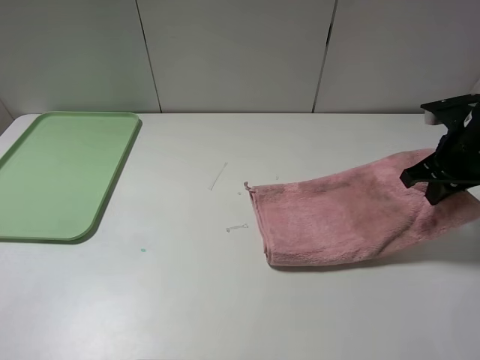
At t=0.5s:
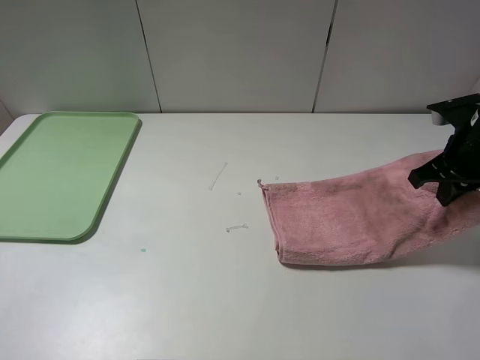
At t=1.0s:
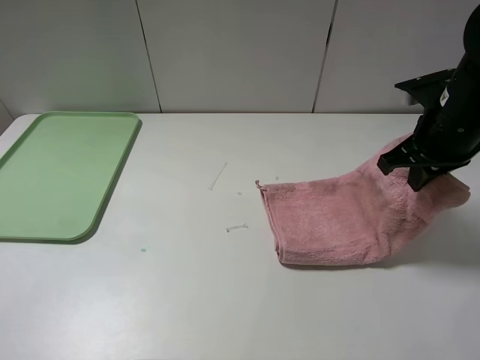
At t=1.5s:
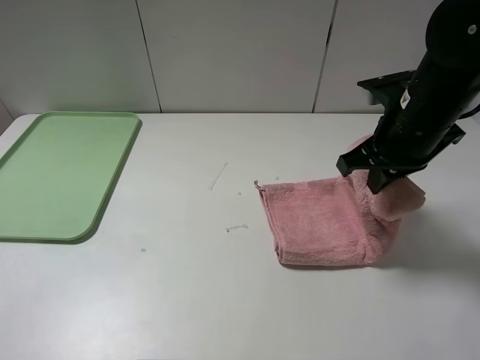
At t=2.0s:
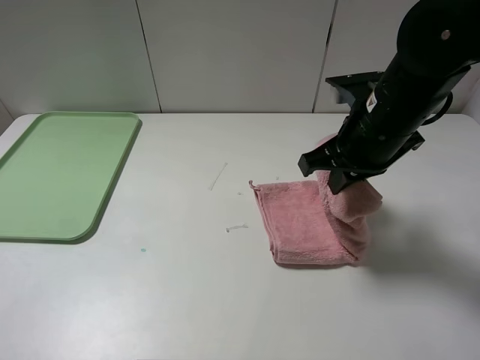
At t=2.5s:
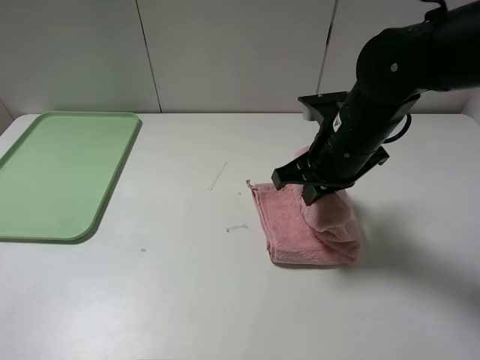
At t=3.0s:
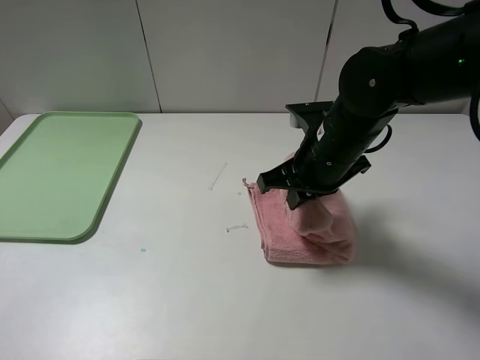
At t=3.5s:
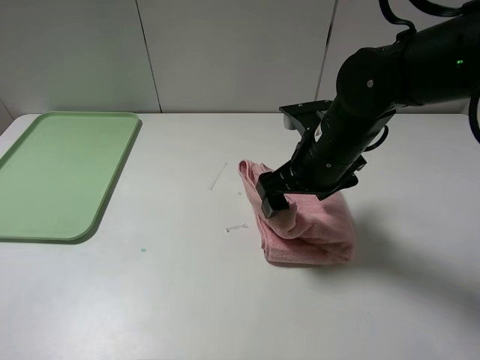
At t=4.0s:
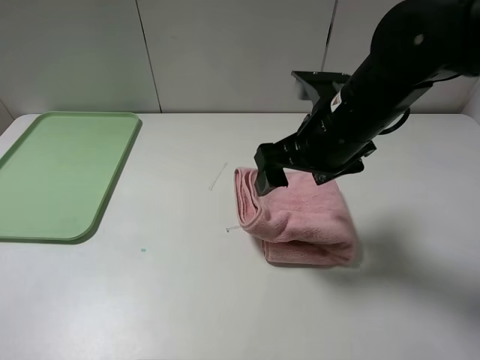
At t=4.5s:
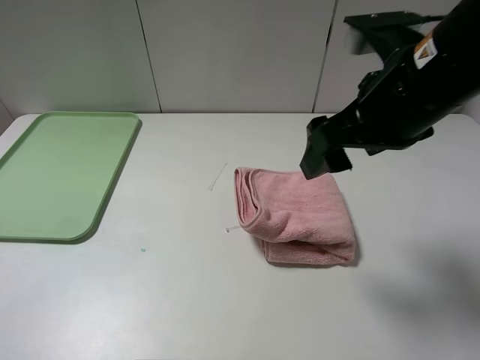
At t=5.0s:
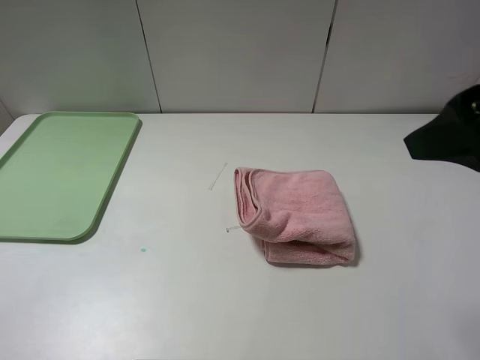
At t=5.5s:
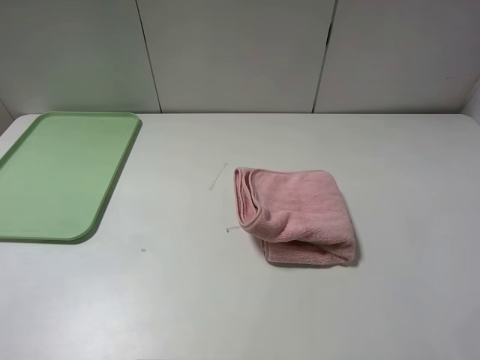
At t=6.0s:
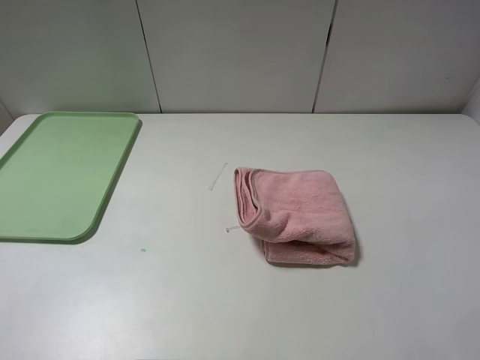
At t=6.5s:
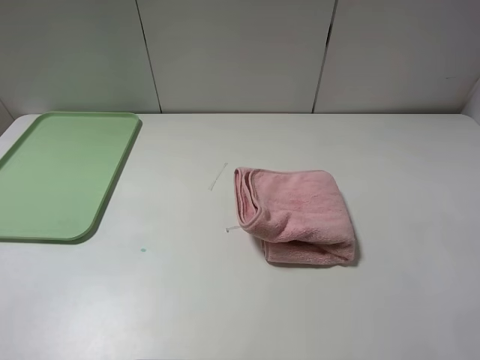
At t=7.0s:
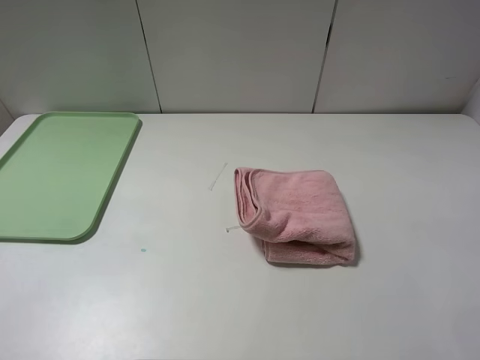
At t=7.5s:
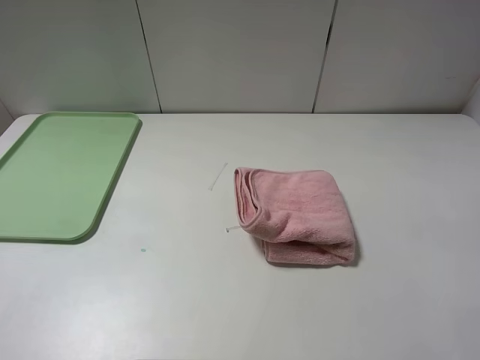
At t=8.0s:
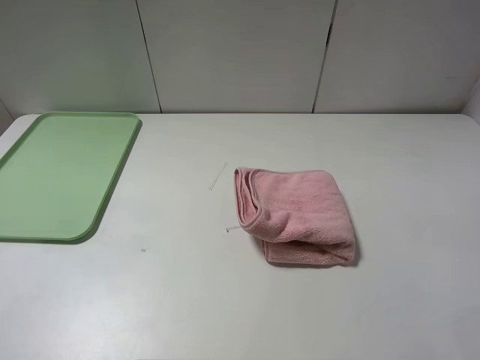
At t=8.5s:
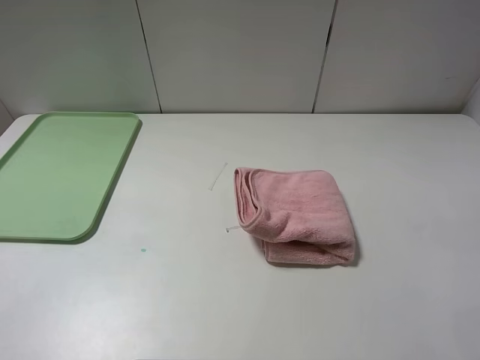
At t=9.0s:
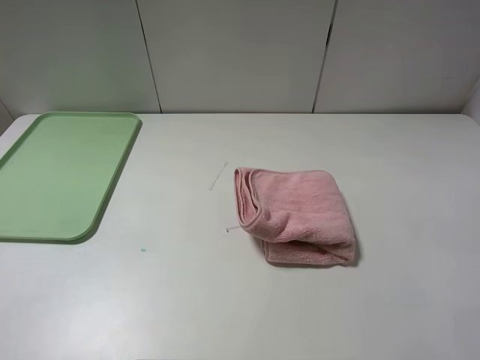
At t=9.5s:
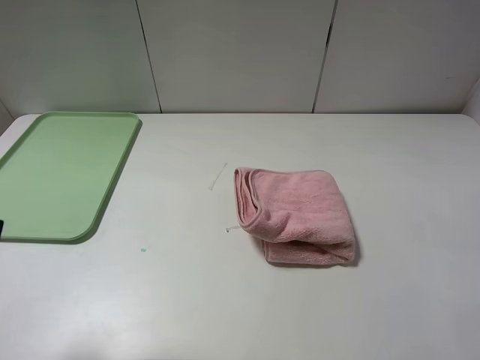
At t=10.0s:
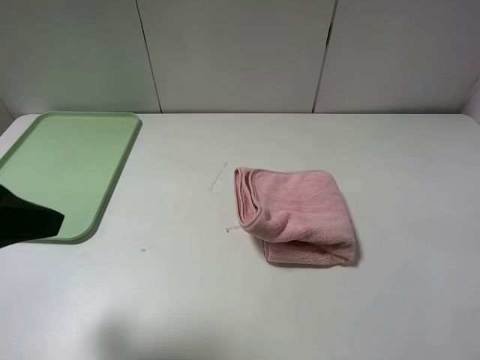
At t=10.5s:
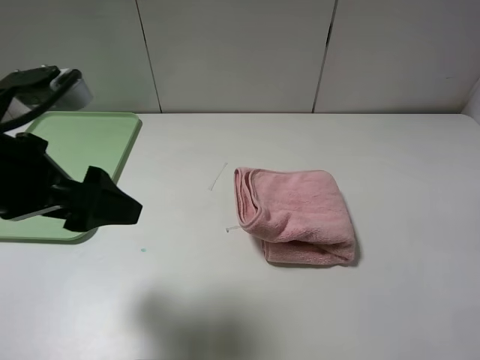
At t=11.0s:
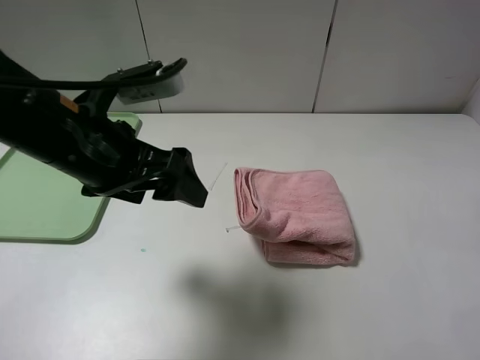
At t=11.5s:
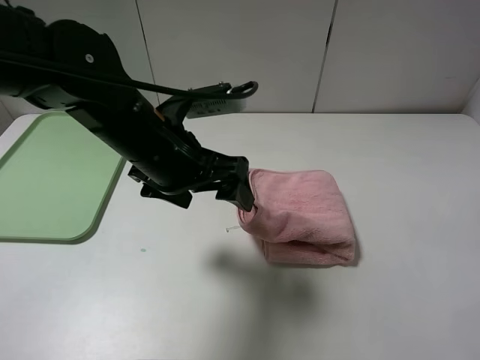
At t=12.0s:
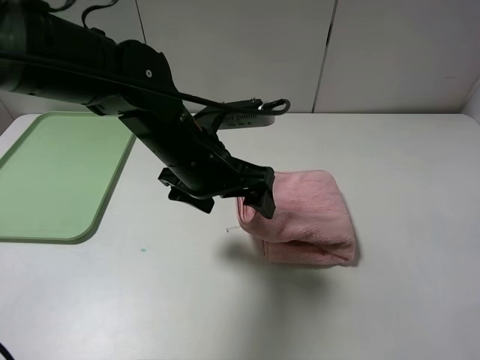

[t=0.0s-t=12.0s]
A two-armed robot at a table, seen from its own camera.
Step, t=0.0s to t=4.0s: Fold the pink towel from right to left with right gripper.
t=0.0s to t=2.0s: The right gripper is displaced to the left by about 15 cm.
t=2.0s to t=4.0s: The right gripper opens up.
t=4.0s to t=6.0s: The right gripper moves backward and to the right, roughly 30 cm.
t=8.0s to t=10.0s: The left gripper is displaced forward by roughly 15 cm.
t=10.0s to t=12.0s: The left gripper travels to the right, forward and downward by approximately 25 cm.

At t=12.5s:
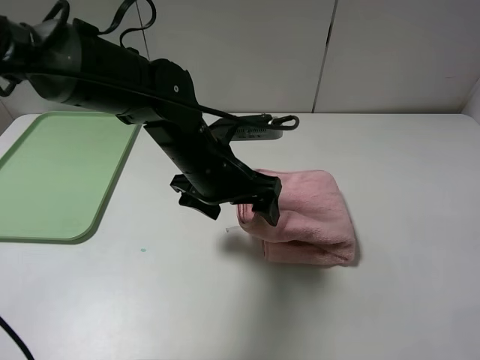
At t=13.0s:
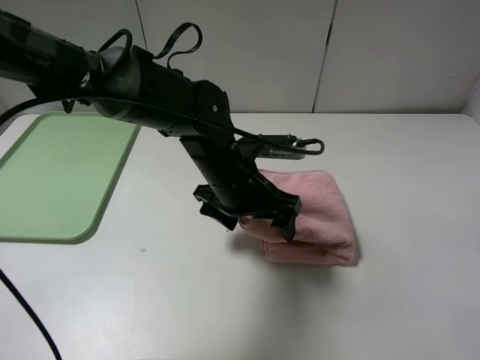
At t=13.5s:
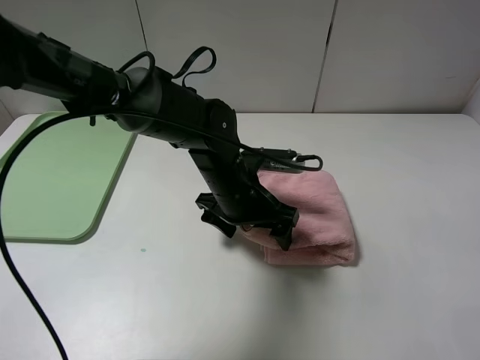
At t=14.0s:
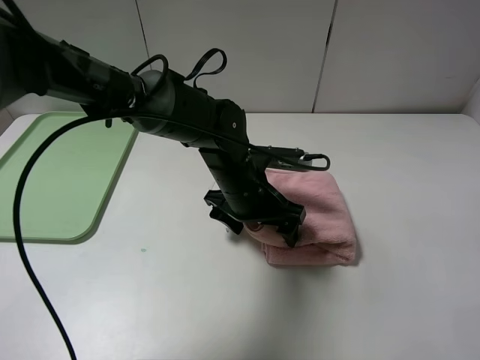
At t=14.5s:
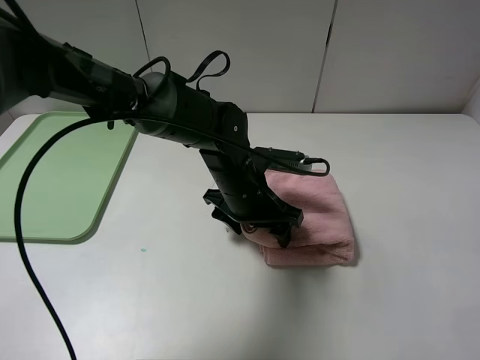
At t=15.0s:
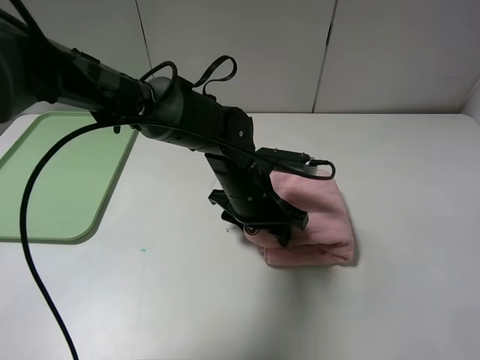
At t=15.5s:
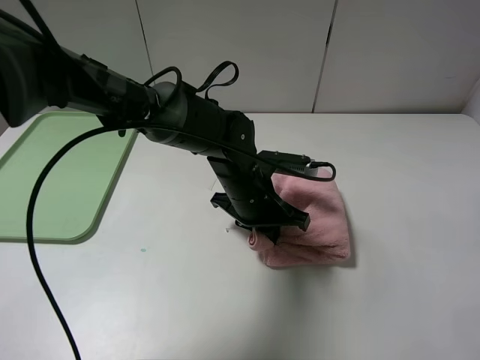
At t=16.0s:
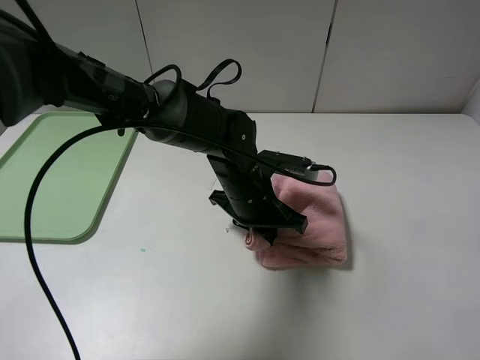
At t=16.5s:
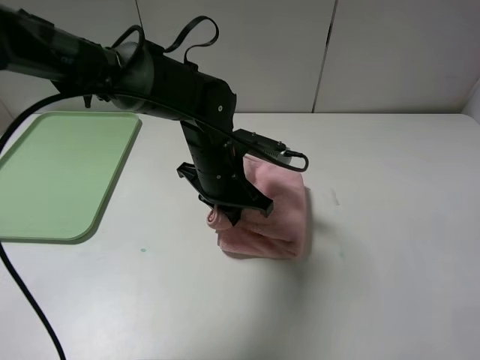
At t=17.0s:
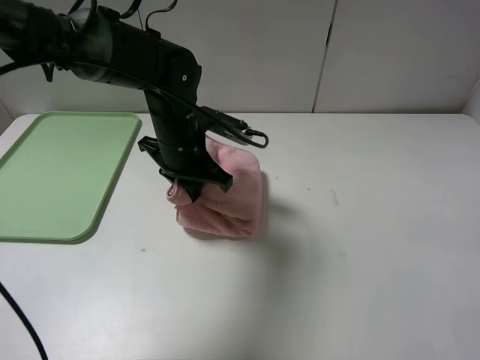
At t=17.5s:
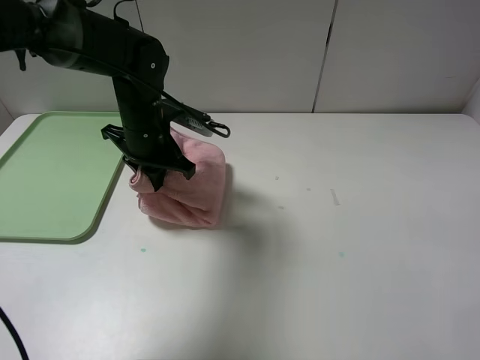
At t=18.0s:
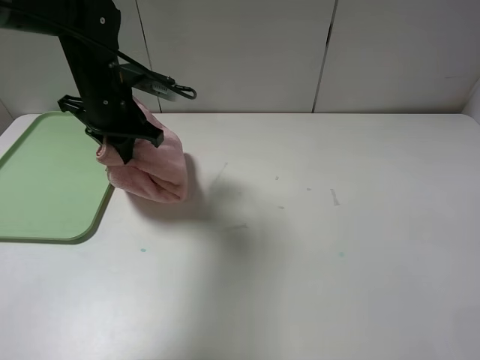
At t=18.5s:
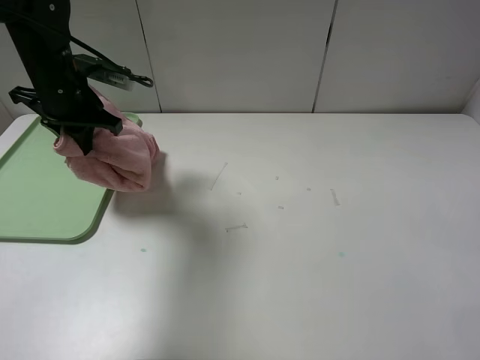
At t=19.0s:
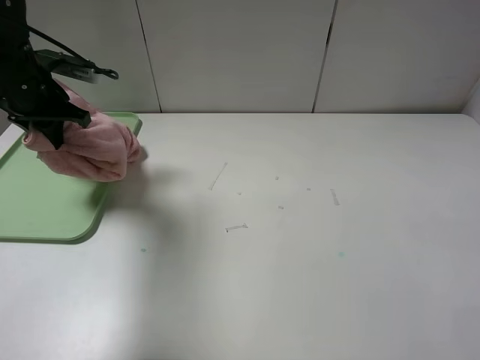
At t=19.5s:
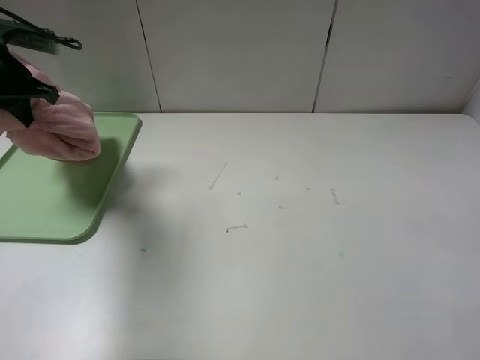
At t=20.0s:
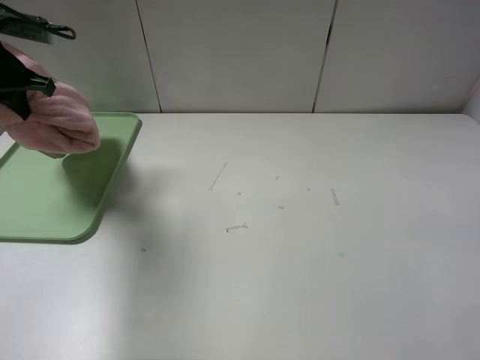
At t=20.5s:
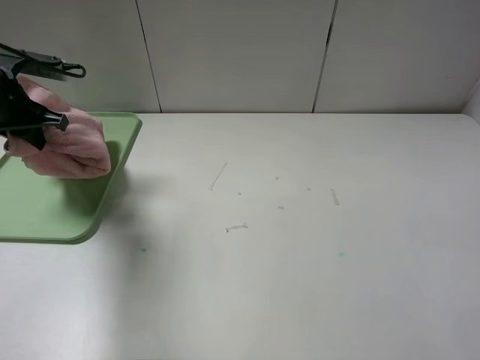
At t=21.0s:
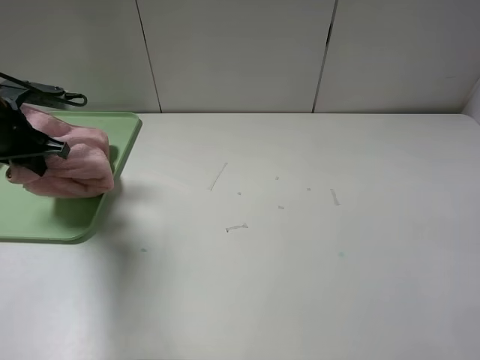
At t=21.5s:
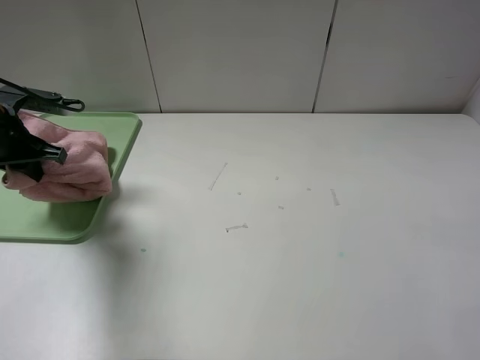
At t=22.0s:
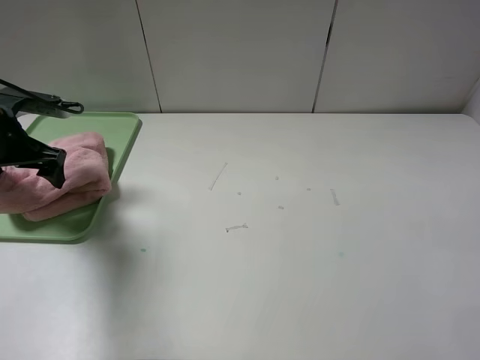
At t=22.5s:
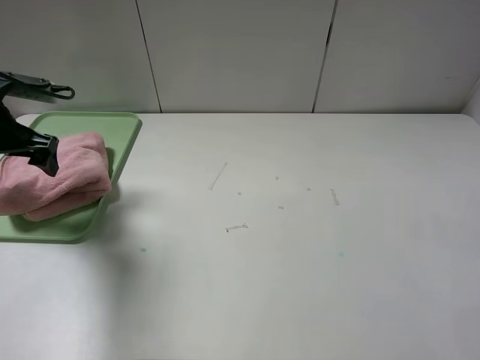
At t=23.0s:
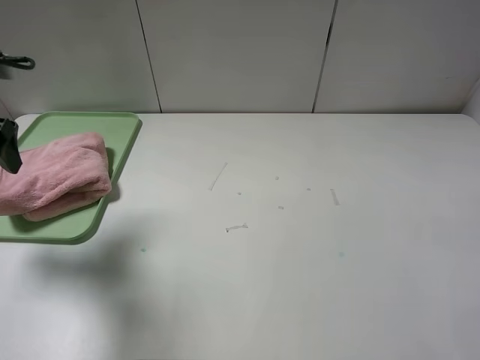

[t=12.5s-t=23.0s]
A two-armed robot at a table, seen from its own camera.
Step, t=12.5s to t=22.0s: Place the folded pink towel on the tray with the left gripper.
t=12.5s to t=14.5s: The left gripper shifts roughly 5 cm downward.
t=14.5s to t=16.5s: The left gripper closes up.
t=16.5s to t=19.0s: The left gripper shifts roughly 30 cm to the left.
t=19.0s to t=21.0s: The left gripper heads backward, covering about 5 cm.
t=21.0s to t=23.0s: The left gripper goes about 10 cm upward and backward, and opens its fingers.

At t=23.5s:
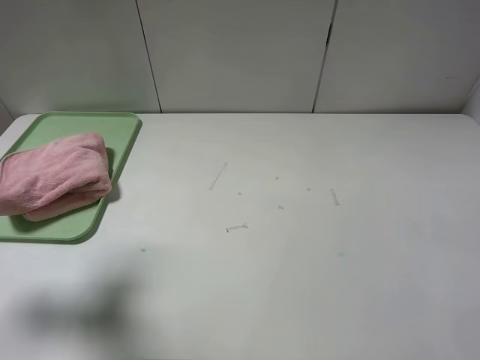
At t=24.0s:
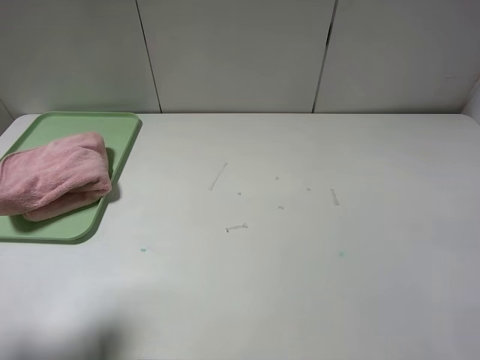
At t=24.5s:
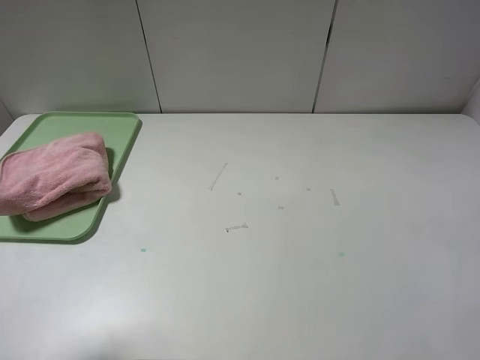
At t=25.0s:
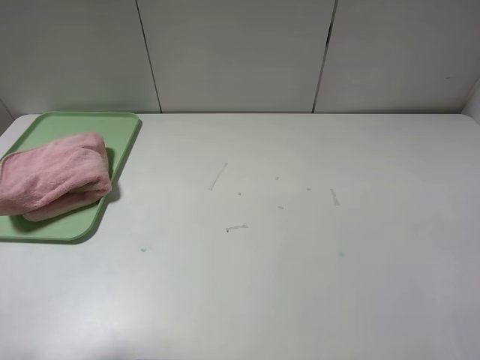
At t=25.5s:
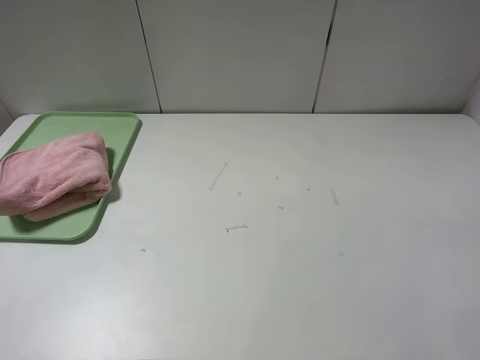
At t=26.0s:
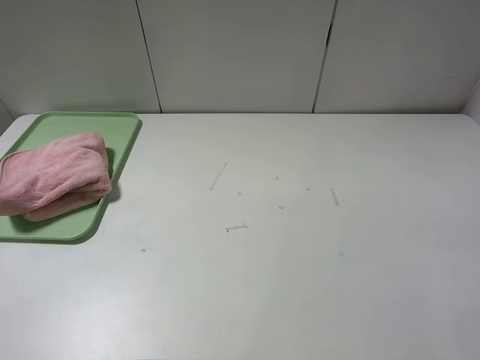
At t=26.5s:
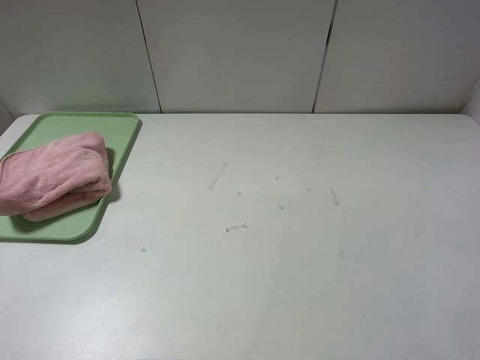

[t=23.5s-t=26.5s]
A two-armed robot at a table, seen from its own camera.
t=23.5s to t=25.0s: The left gripper travels backward by about 10 cm.
